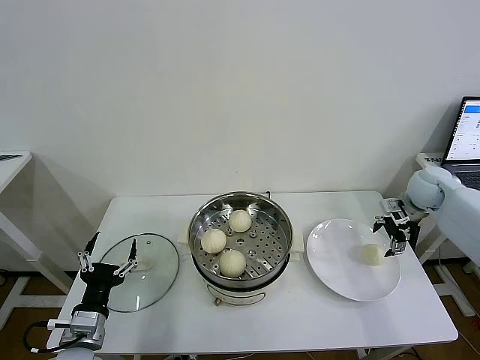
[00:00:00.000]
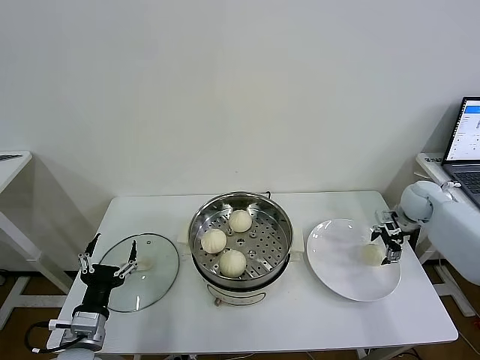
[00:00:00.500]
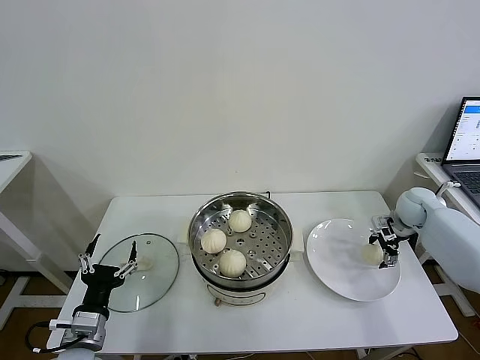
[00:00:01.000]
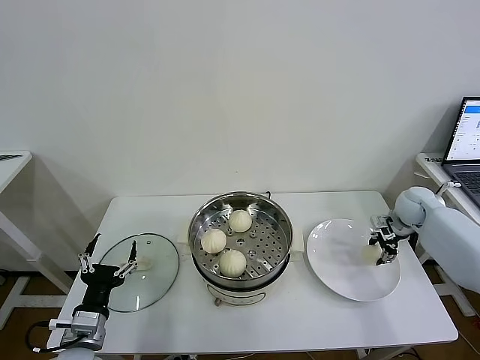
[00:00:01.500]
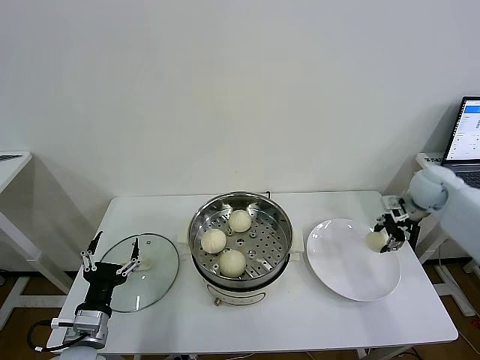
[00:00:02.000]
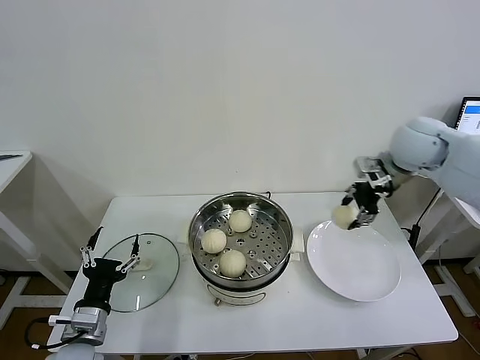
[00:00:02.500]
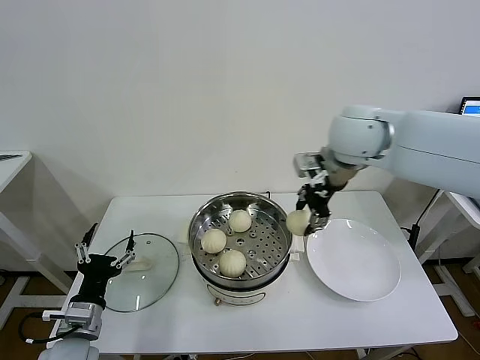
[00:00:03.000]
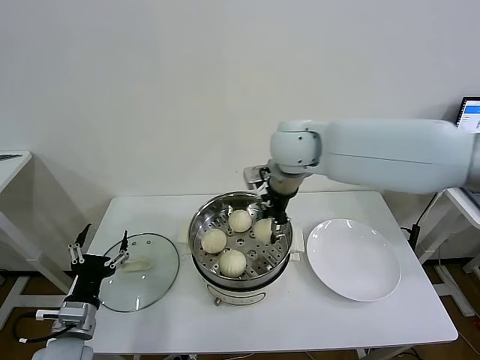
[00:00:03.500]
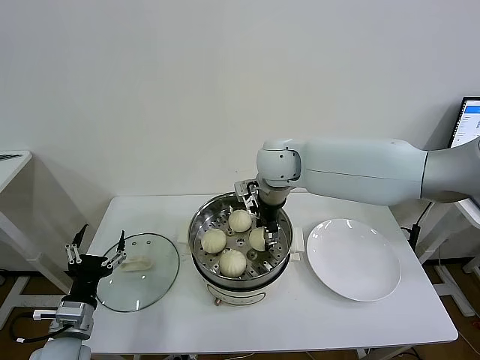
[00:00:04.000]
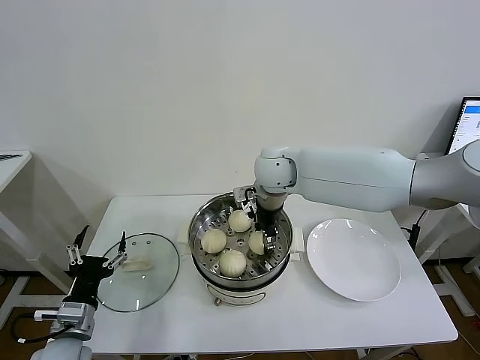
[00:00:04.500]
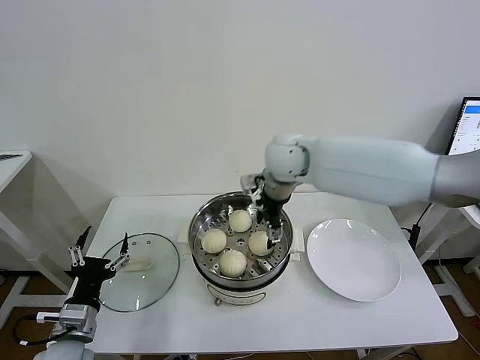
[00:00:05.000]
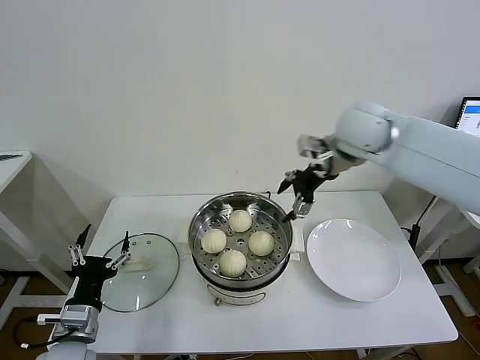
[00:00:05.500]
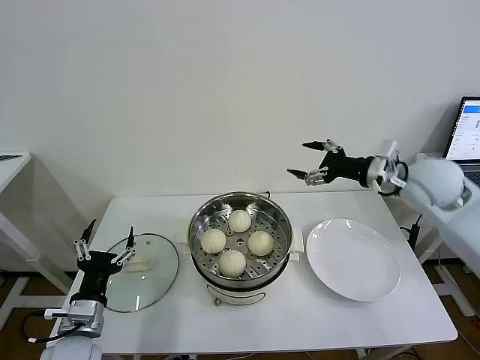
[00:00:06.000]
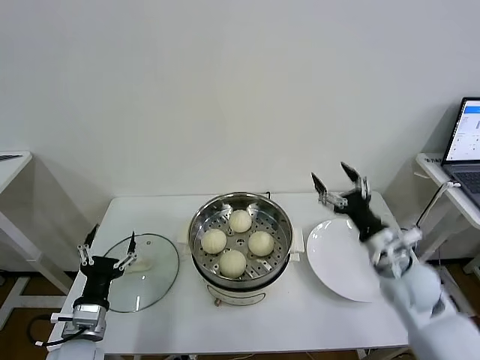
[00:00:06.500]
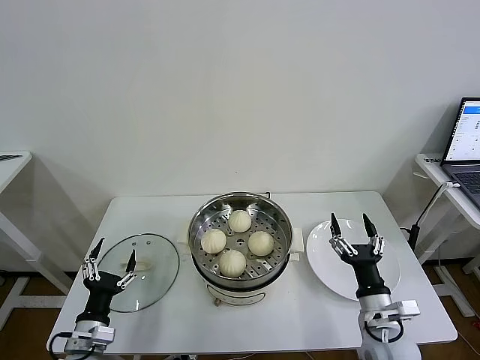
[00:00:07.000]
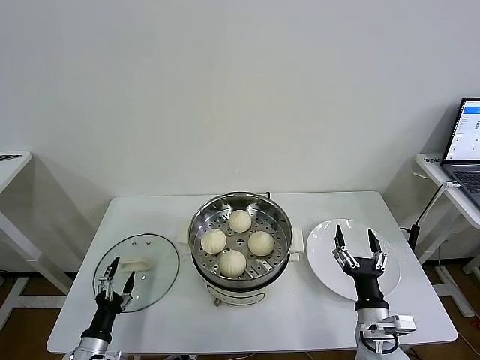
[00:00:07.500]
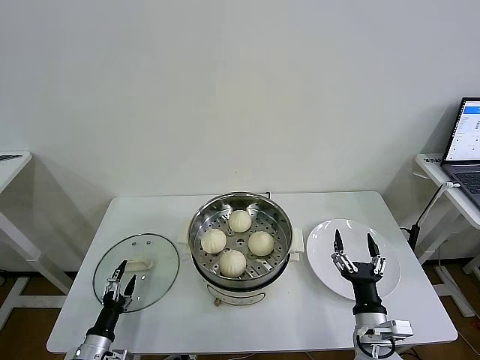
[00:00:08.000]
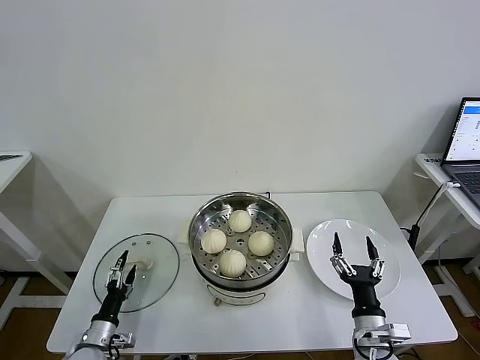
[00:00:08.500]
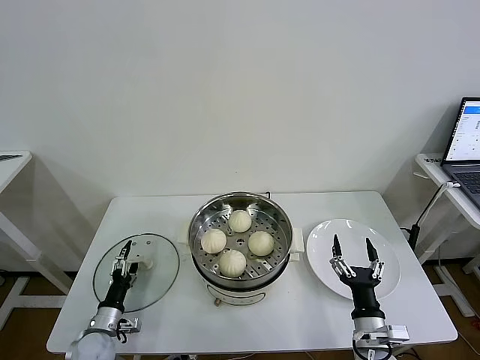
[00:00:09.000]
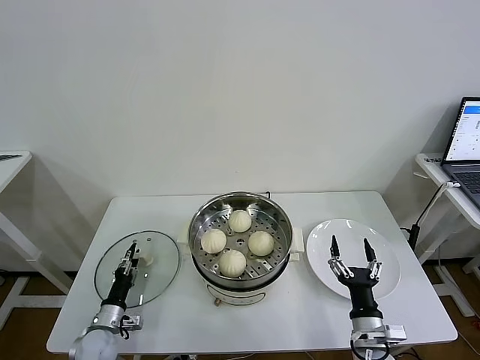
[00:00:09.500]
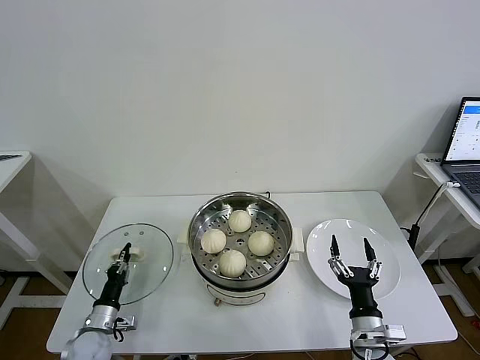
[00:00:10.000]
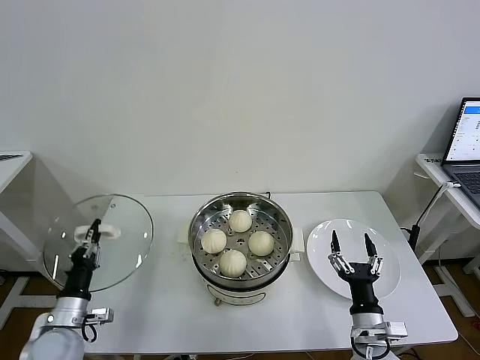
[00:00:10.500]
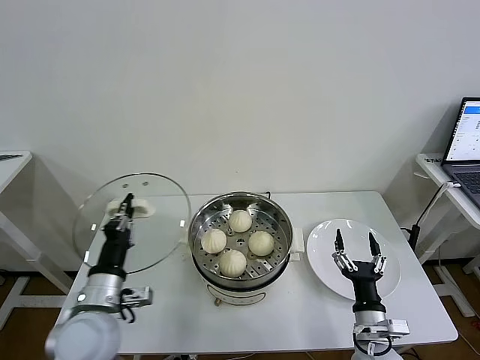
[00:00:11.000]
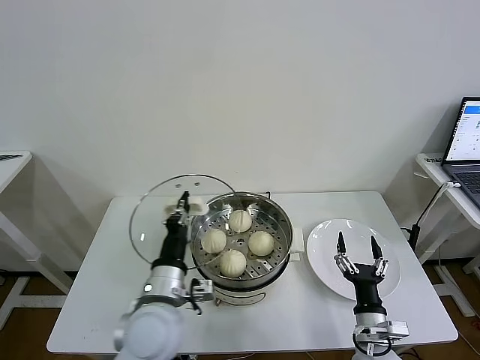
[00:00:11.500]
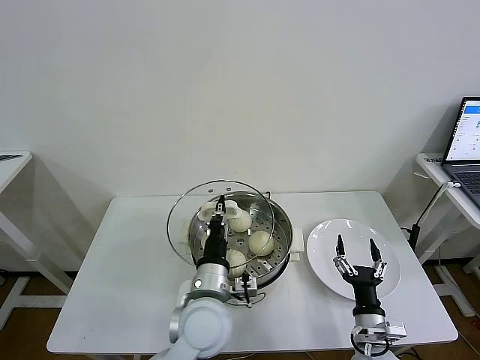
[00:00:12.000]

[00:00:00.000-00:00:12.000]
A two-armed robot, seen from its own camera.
Task of the whole recording: take steamed baozi put them in steamer then cover it.
Step, 00:00:01.500 to 00:00:04.500: Place the baozi on the steamer with right gripper.
Step, 00:00:05.000 to 00:00:09.500: Grasp the pot lid with left gripper.
00:00:00.000 to 00:00:02.000: The right gripper reaches about 5 cm downward, then returns, and closes its fingers.
00:00:02.000 to 00:00:04.000: The right gripper moves to the left, approximately 35 cm.
00:00:04.000 to 00:00:06.000: The right gripper is displaced to the right by some 30 cm, and opens up.
00:00:06.000 to 00:00:08.000: The left gripper travels downward by about 20 cm, while the right gripper moves downward and backward, about 35 cm.
00:00:08.000 to 00:00:10.000: The left gripper travels forward by roughly 5 cm, and closes its fingers.
00:00:10.000 to 00:00:12.000: The left gripper shifts about 35 cm to the right and upward.

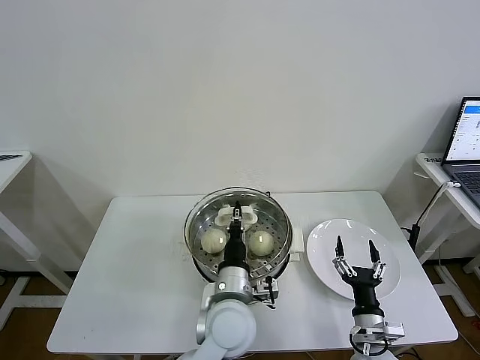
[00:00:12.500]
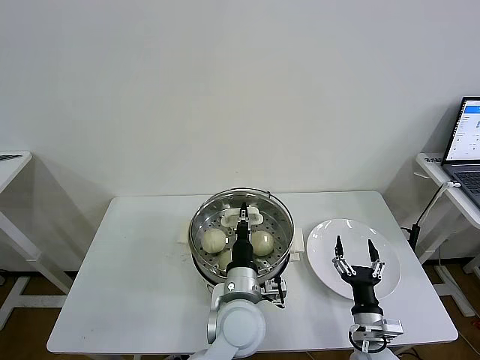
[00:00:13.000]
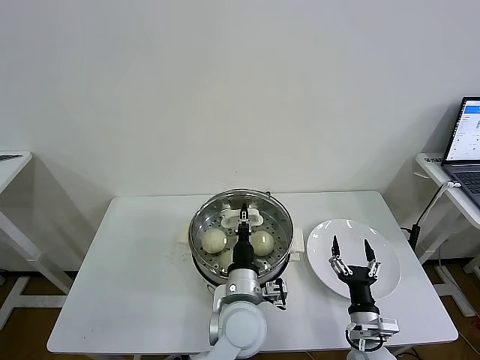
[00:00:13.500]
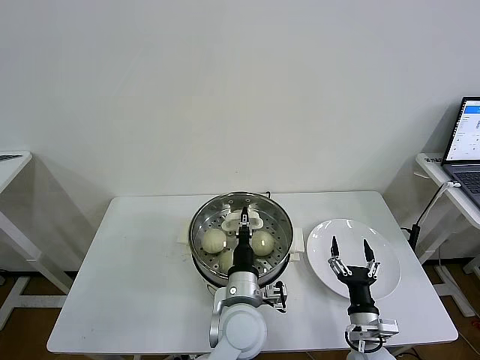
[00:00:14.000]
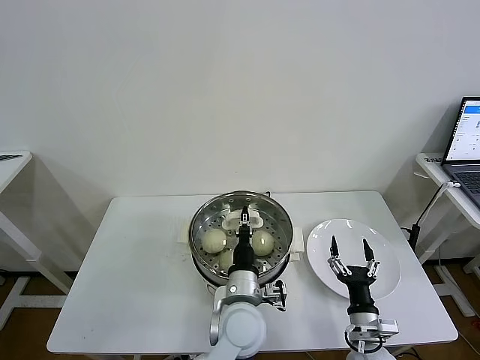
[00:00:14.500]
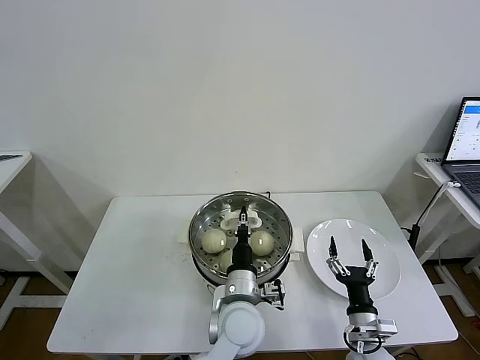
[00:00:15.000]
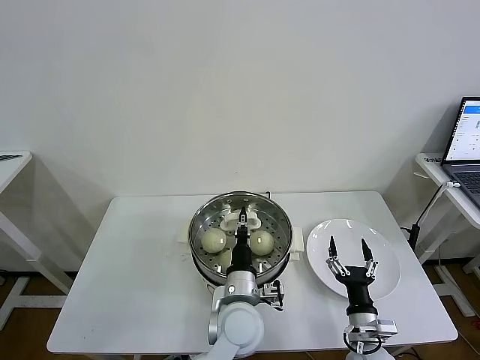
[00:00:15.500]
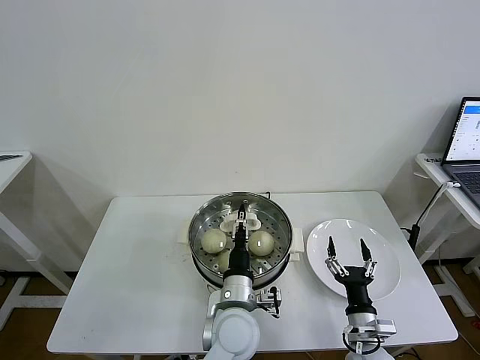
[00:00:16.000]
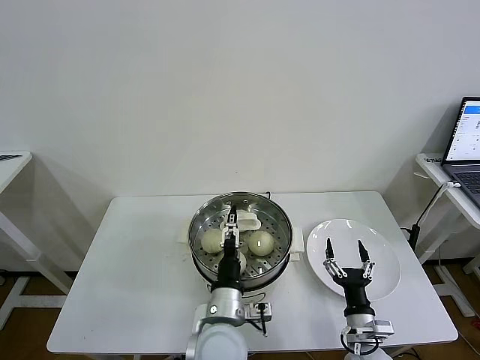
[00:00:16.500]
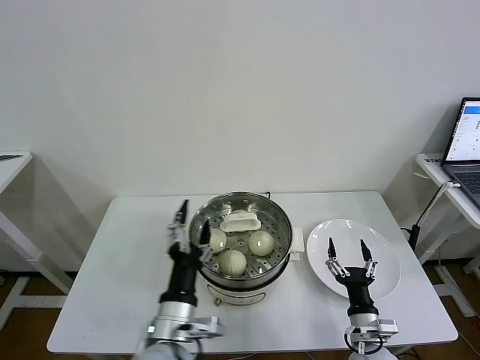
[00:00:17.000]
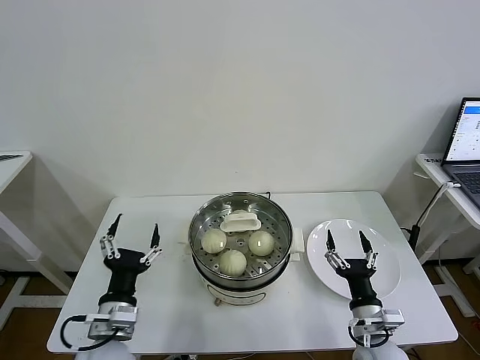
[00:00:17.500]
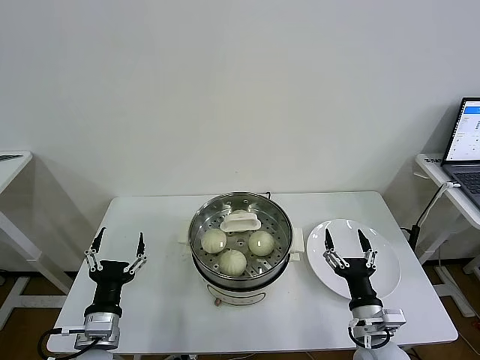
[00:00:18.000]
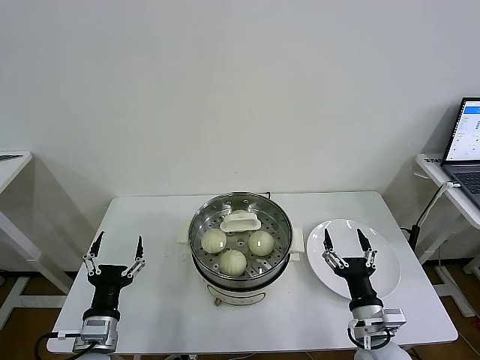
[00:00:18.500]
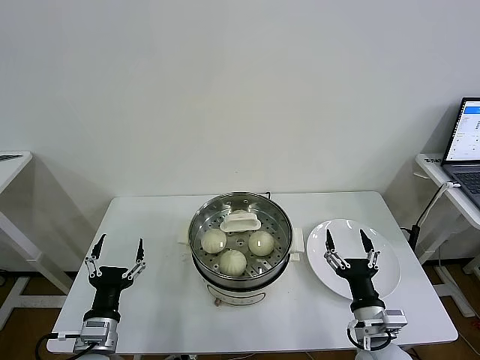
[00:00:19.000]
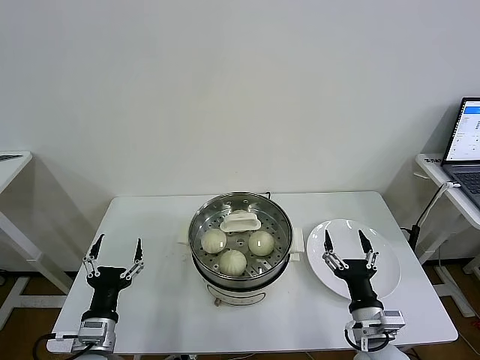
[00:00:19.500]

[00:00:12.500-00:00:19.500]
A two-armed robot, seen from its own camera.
Task of the whole recording: take steamed baozi put them in steamer then cover it.
Step, 00:00:12.500 to 00:00:16.500: Place the pot lid on the steamer with left gripper.
00:00:12.500 to 00:00:14.500: The grippers make only small movements.
00:00:14.500 to 00:00:16.000: The left gripper opens.
00:00:16.000 to 00:00:17.500: The left gripper shifts roughly 20 cm to the left, and opens its fingers.
00:00:17.500 to 00:00:19.500: The left gripper is displaced to the left and downward by some 5 cm.
